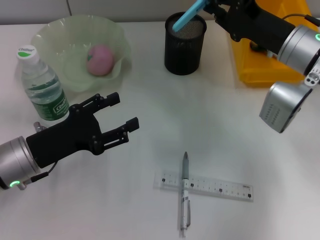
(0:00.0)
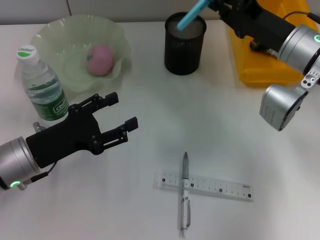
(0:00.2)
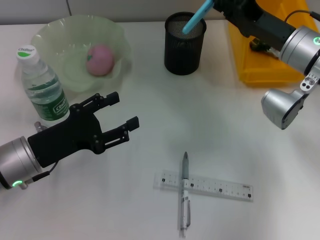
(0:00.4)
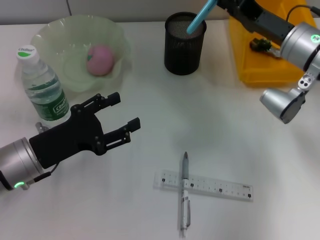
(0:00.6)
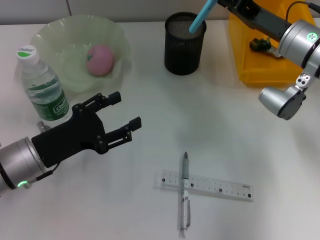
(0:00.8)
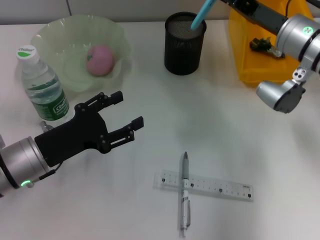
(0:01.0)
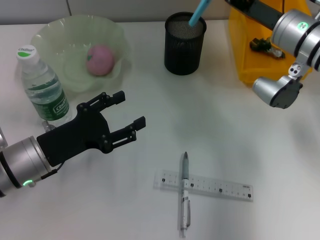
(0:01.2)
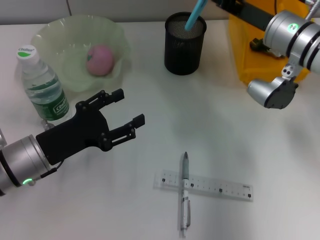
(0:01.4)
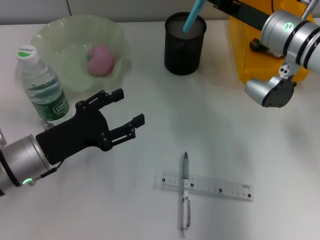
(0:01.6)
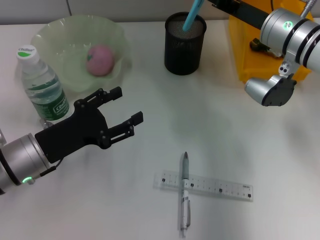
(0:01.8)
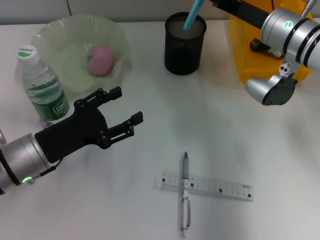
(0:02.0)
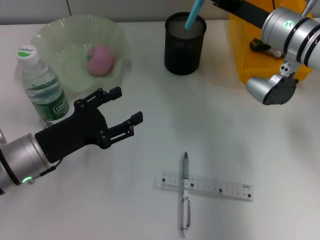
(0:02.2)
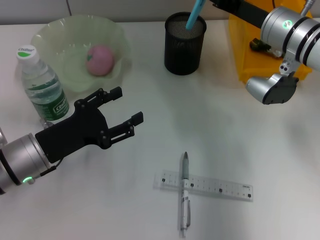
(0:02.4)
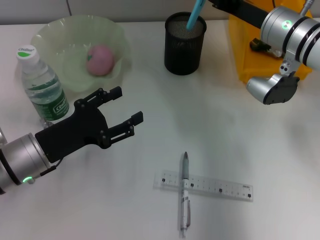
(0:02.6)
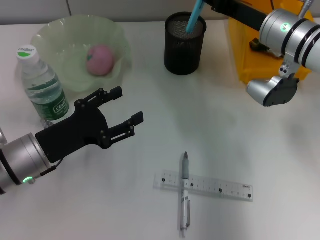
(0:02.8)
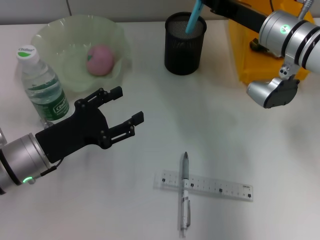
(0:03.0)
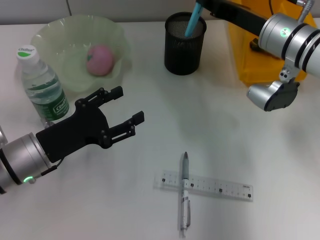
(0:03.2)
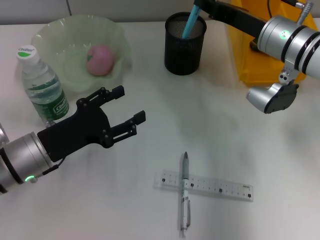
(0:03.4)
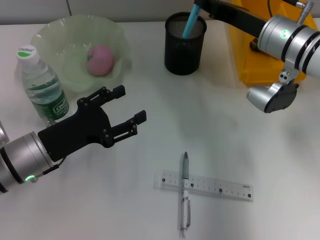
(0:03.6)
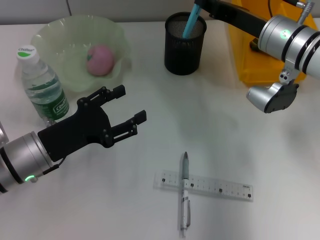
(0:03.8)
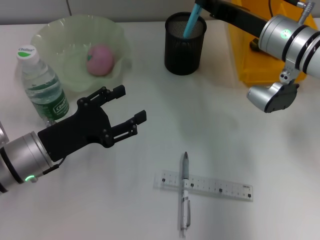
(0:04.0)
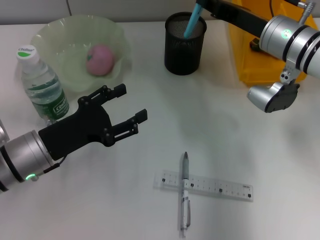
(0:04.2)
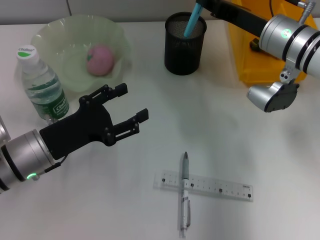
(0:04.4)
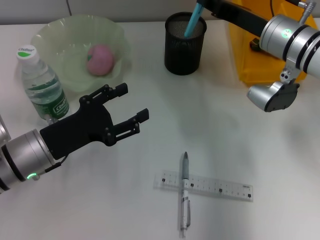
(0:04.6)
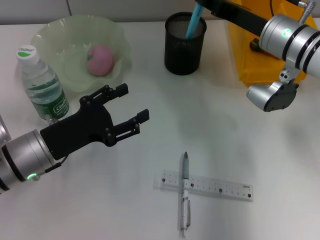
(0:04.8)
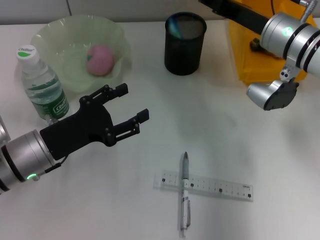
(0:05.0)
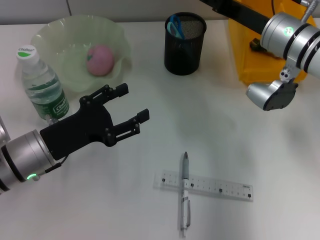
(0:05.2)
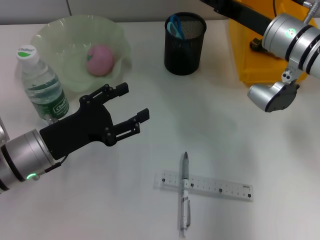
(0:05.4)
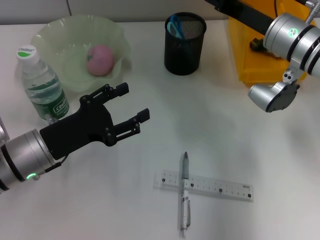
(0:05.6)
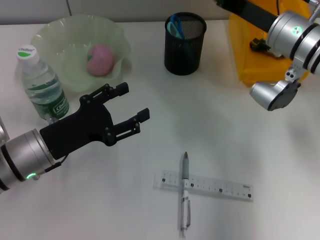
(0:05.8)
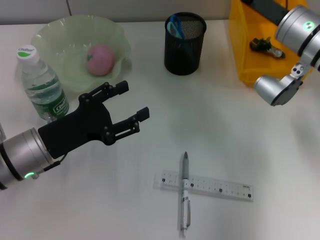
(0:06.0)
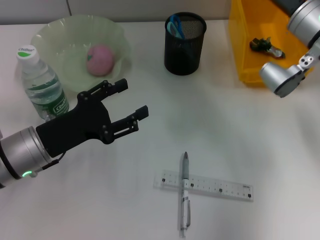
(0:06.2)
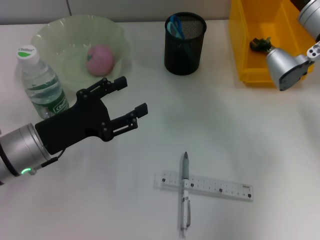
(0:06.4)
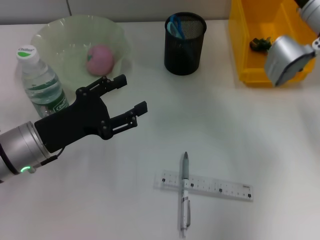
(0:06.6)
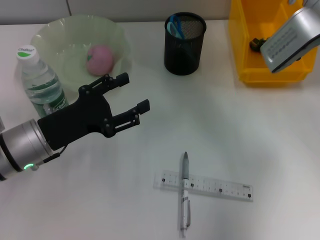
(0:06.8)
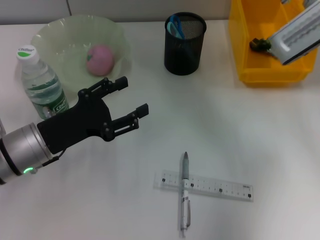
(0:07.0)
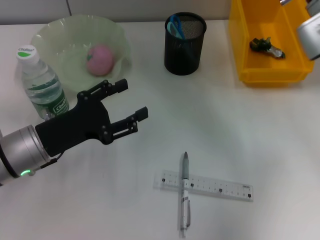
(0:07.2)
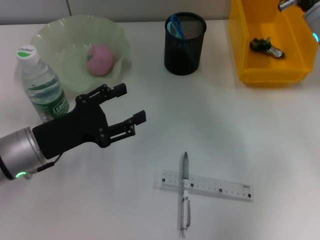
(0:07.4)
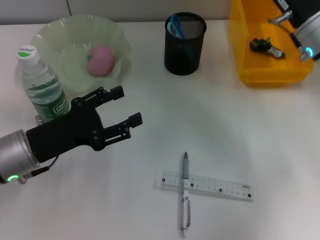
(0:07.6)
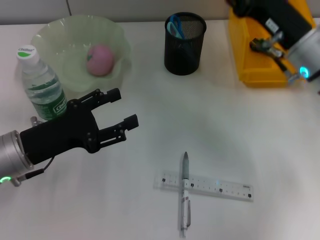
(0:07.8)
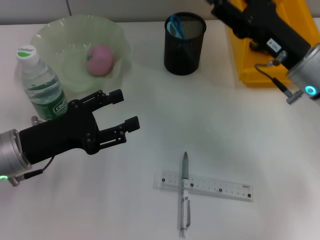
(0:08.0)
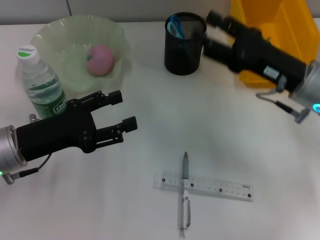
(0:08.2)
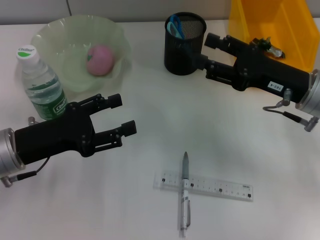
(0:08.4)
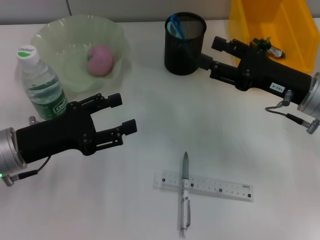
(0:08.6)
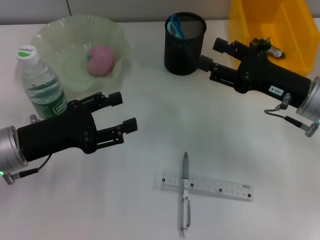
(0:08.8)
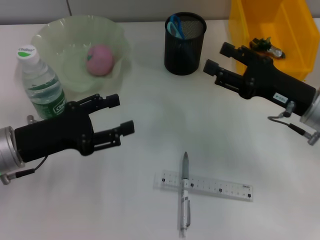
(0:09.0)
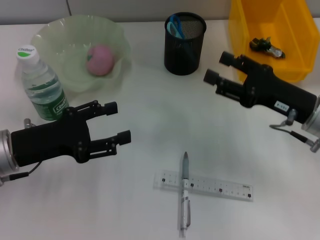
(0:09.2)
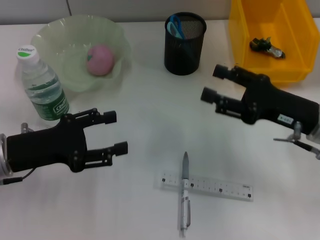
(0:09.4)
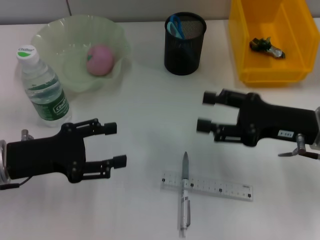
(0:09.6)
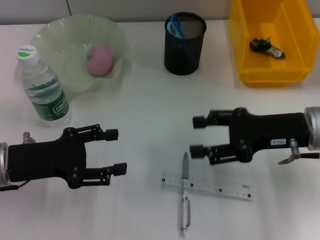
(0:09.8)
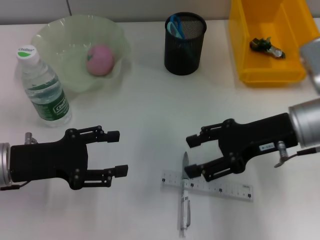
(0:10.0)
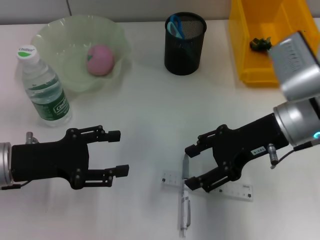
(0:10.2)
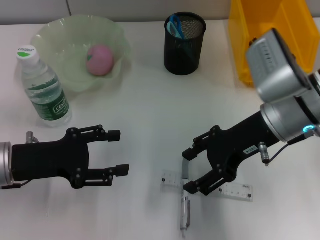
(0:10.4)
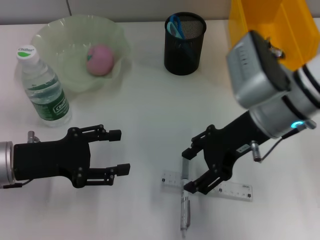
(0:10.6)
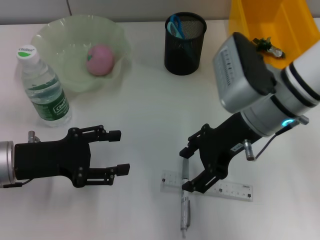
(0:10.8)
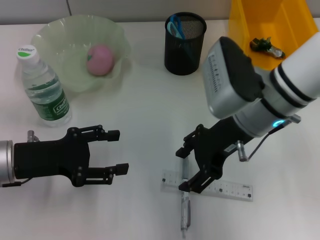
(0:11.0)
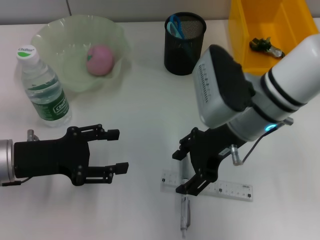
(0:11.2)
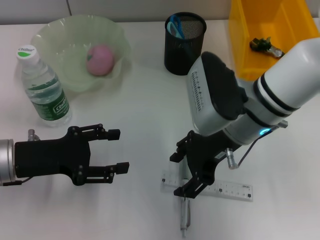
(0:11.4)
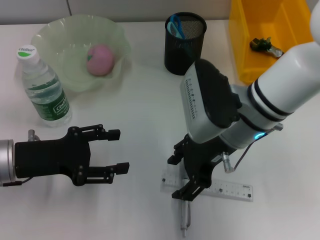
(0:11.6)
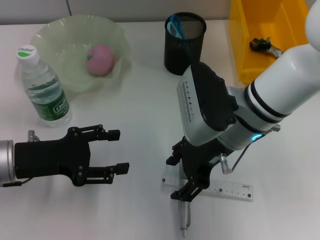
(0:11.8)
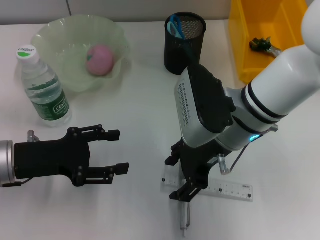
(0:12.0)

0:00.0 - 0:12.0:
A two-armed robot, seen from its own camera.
Step, 0:00.0 - 0:05.0: Place the blue scissors into the pen holder with the right hand.
0:01.6 - 0:03.0: The grippers make only small movements.
0:03.0 - 0:04.4: Both grippers stay put.
0:04.4 - 0:06.0: The right gripper opens up.
0:07.6 - 0:09.0: The right gripper travels backward and downward by approximately 10 cm.
0:09.0 - 0:10.4: The right gripper travels to the left and upward by about 10 cm.
0:10.4 - 0:12.0: The right gripper shifts about 5 cm to the left.

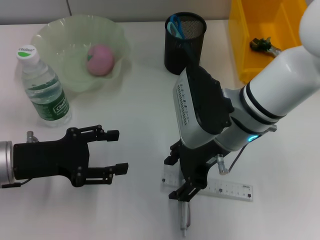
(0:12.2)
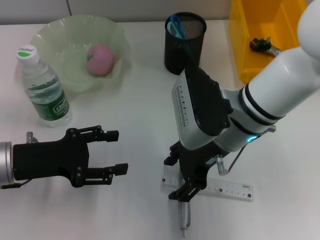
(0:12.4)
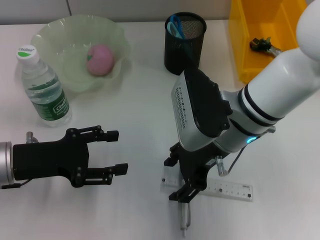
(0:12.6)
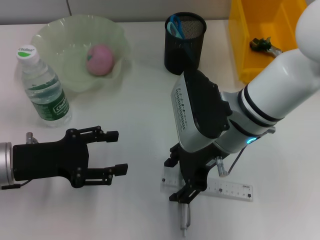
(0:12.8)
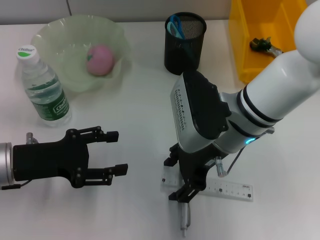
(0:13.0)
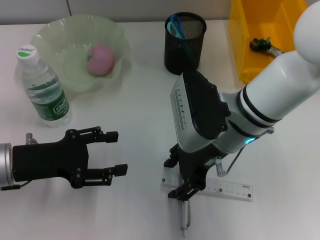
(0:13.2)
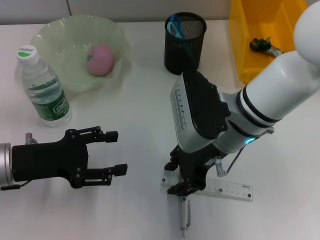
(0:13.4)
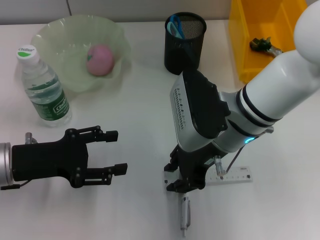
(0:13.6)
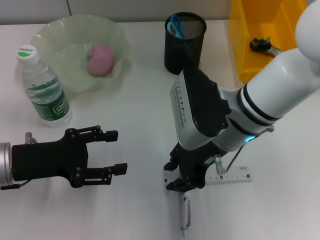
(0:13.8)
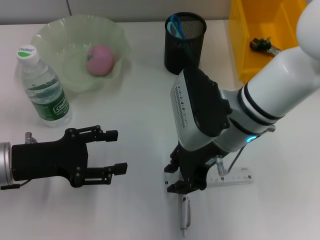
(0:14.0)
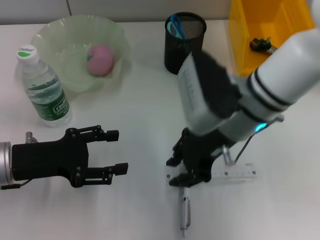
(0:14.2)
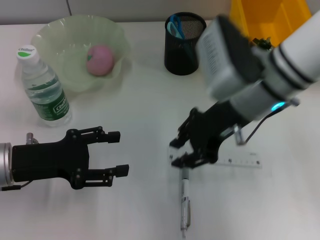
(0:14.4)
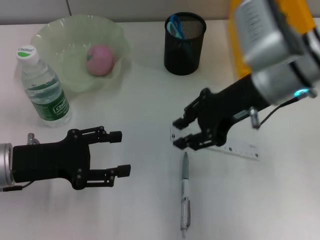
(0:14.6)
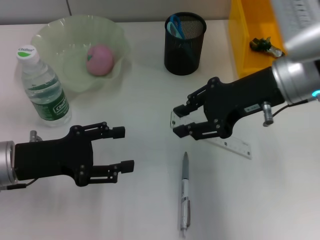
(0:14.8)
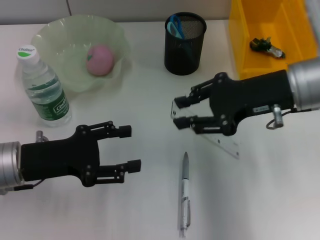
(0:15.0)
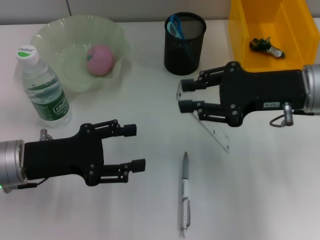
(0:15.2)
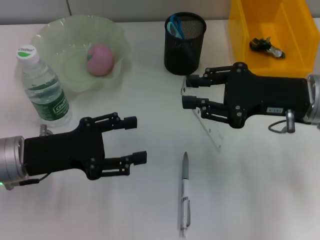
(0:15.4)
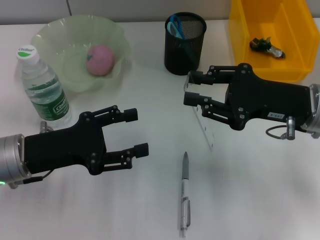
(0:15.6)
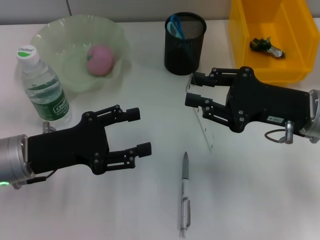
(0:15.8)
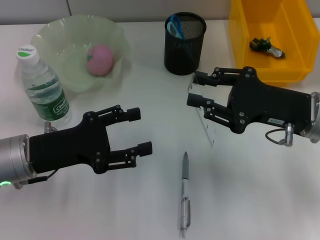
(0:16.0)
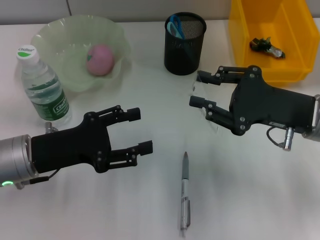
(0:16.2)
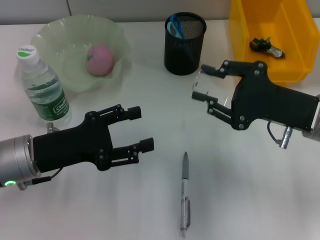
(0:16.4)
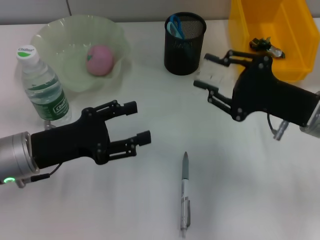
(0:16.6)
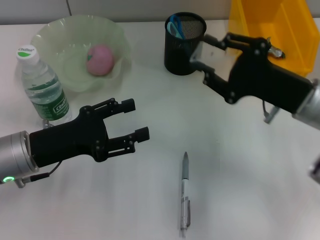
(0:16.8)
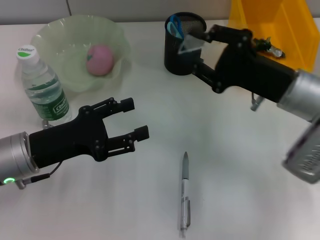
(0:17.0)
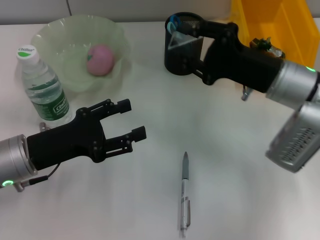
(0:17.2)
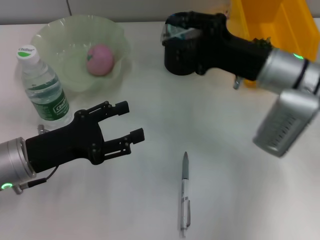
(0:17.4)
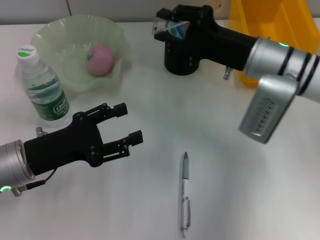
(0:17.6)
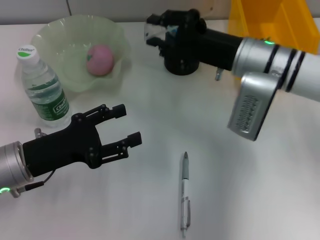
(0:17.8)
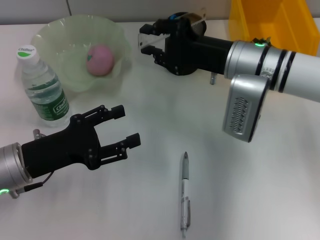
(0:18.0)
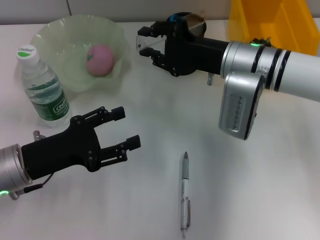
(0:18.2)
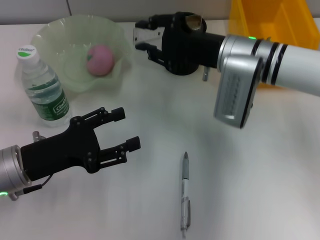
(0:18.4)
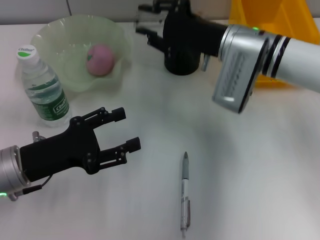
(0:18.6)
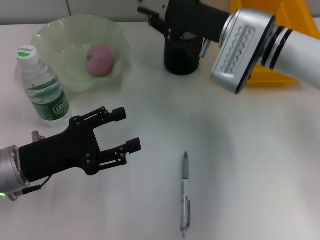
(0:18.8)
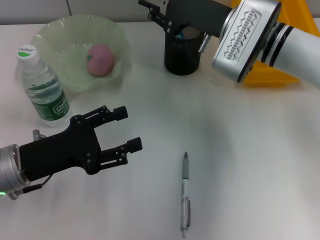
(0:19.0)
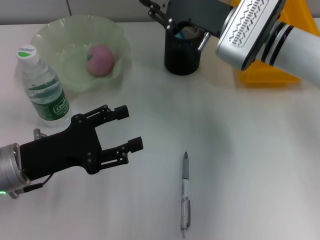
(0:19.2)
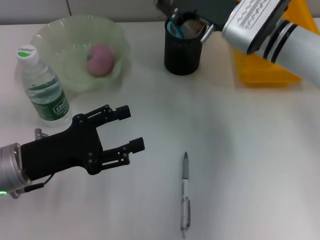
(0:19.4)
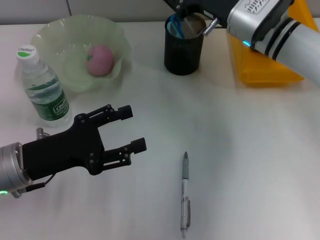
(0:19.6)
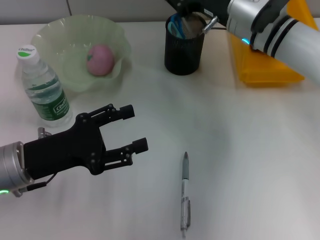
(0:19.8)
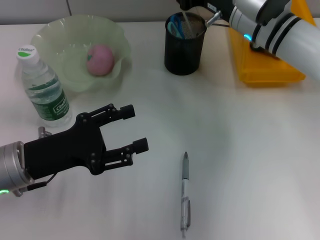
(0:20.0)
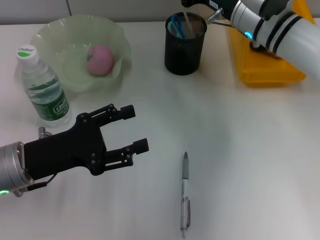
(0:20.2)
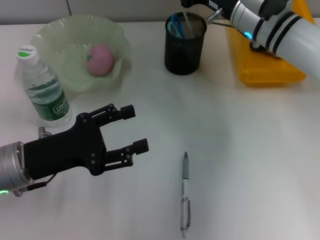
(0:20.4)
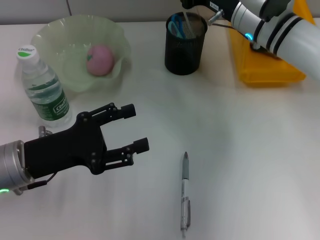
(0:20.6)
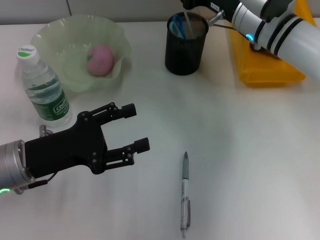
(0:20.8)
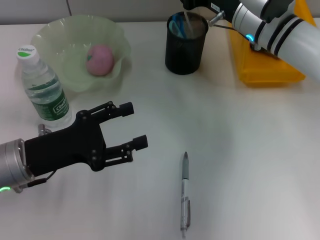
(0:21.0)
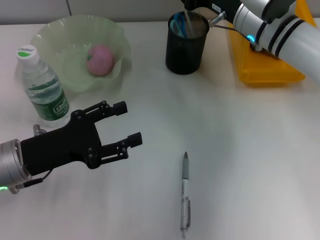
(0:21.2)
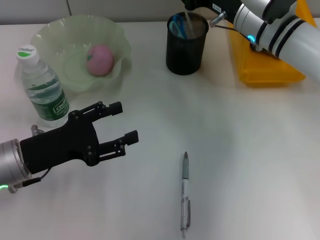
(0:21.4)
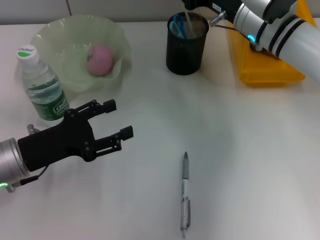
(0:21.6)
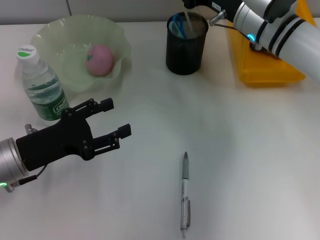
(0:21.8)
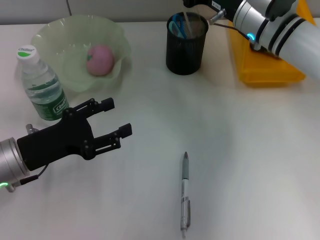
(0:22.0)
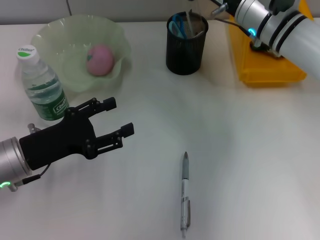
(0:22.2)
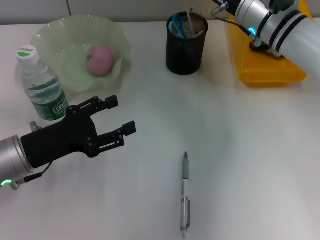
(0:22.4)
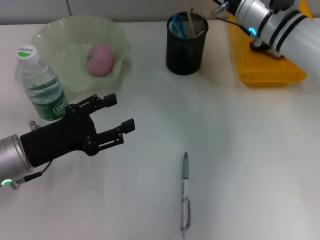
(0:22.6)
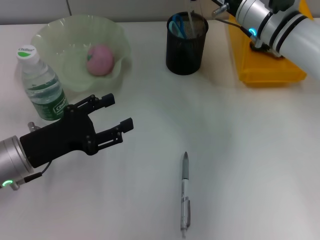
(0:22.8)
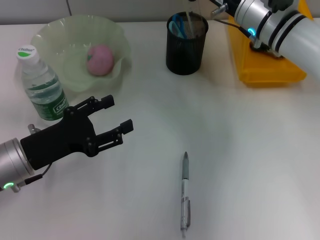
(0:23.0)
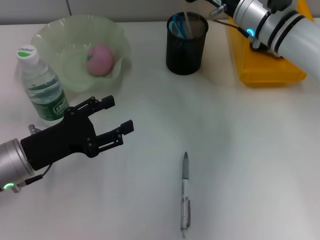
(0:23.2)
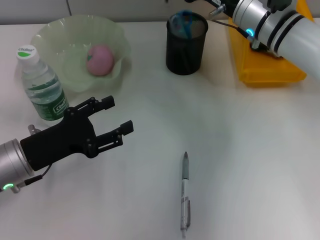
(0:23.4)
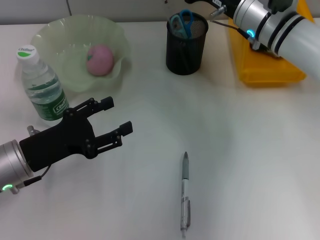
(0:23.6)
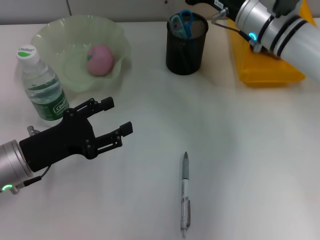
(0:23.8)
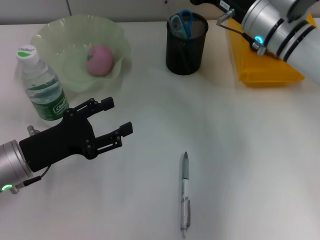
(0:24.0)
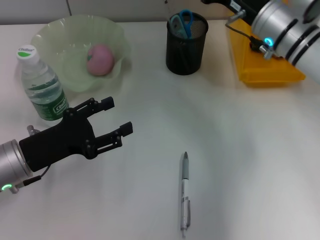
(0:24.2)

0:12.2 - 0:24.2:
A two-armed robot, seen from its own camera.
Step, 0:14.0 - 0:23.4: Place the ruler into the pen holder with the right hand.
0:12.2 - 0:13.8: The right gripper closes.
0:13.8 - 0:15.2: The right gripper moves to the right, roughly 10 cm.
0:15.2 - 0:16.6: The right gripper travels downward by approximately 5 cm.
0:16.6 - 0:18.2: The right gripper goes roughly 15 cm forward and to the left.
0:19.8 - 0:22.6: There are only small adjustments of the grippers.
0:22.6 - 0:24.2: The right gripper opens up.
